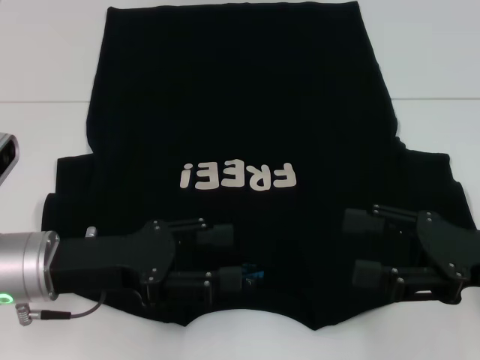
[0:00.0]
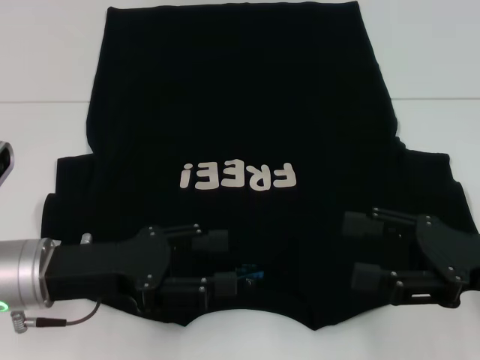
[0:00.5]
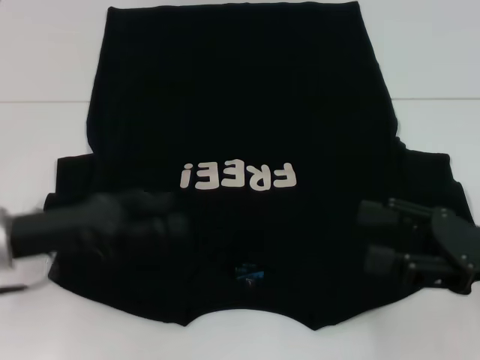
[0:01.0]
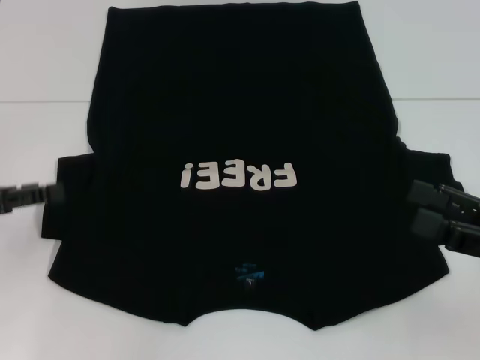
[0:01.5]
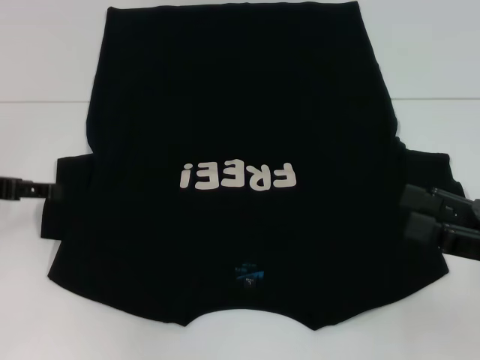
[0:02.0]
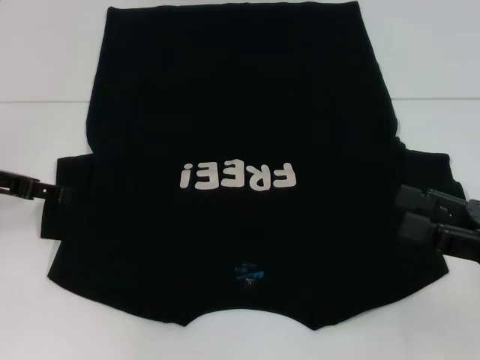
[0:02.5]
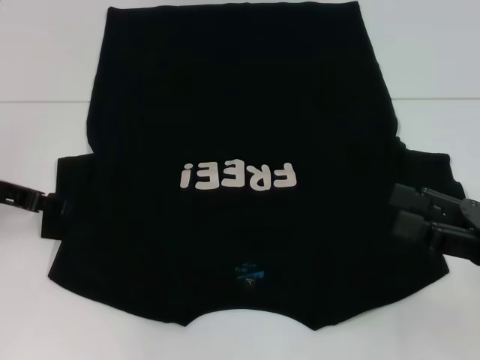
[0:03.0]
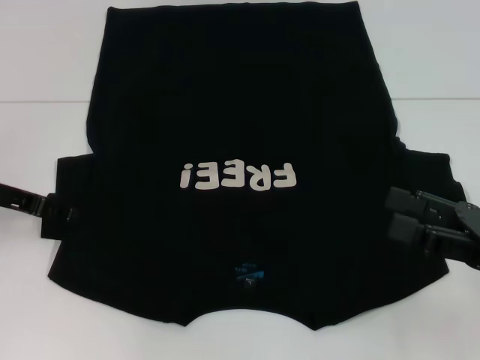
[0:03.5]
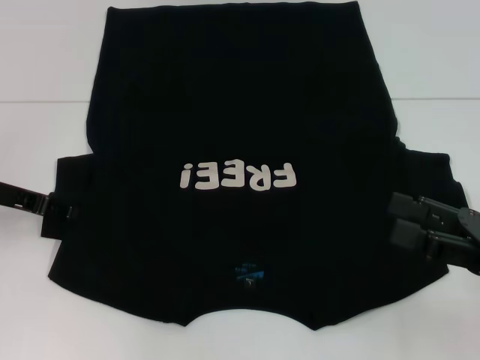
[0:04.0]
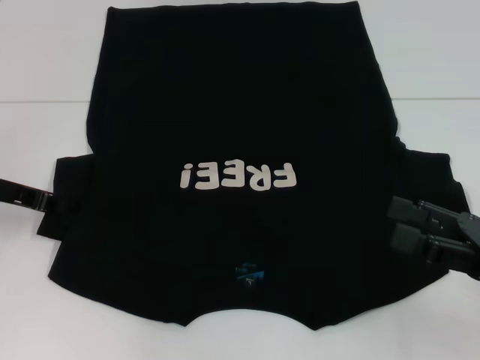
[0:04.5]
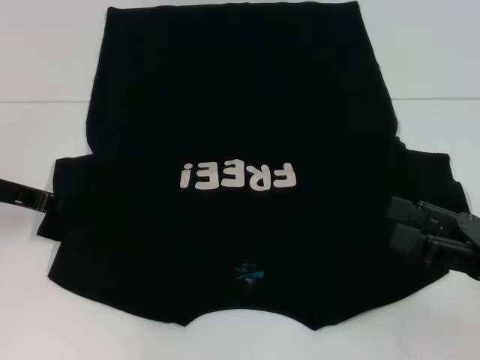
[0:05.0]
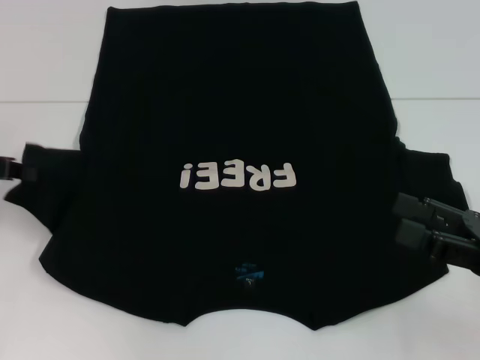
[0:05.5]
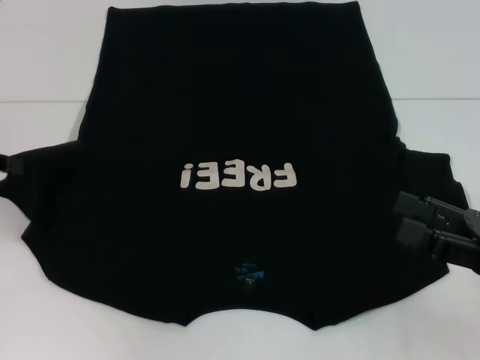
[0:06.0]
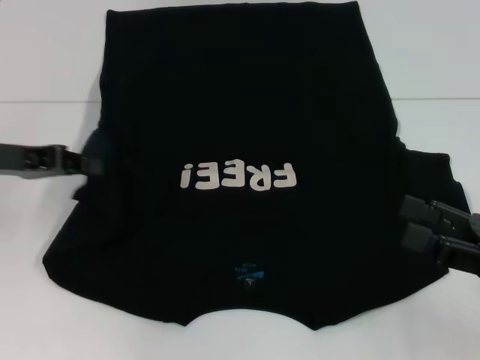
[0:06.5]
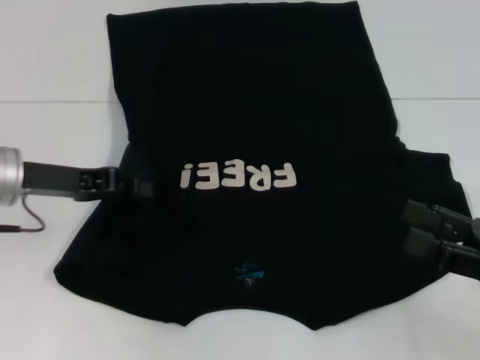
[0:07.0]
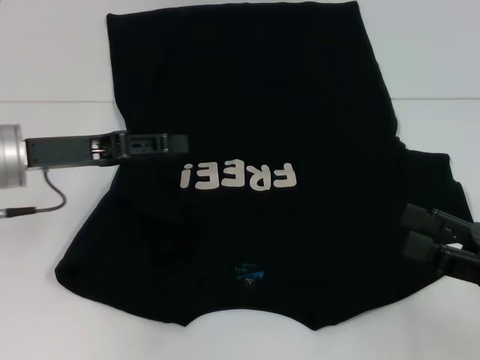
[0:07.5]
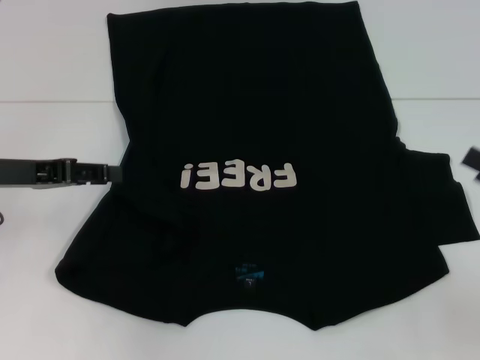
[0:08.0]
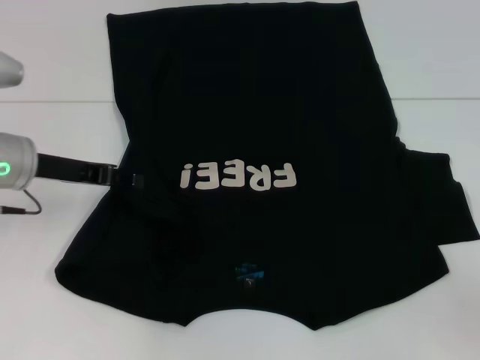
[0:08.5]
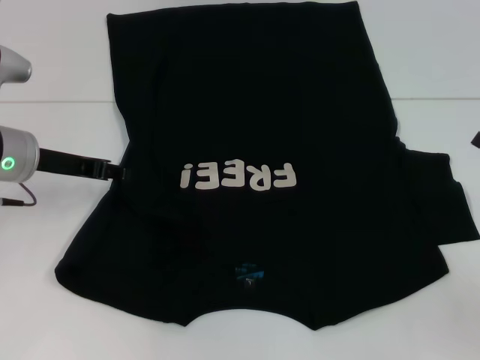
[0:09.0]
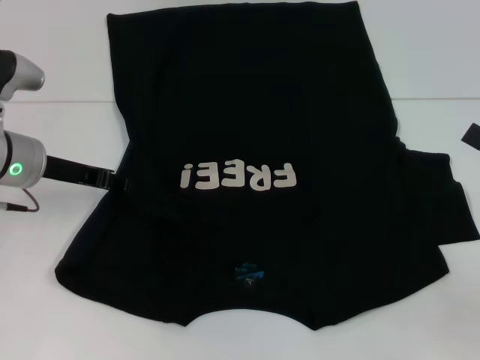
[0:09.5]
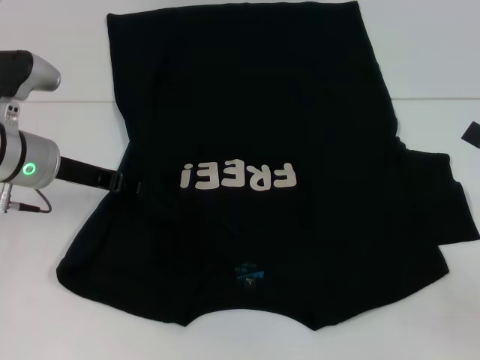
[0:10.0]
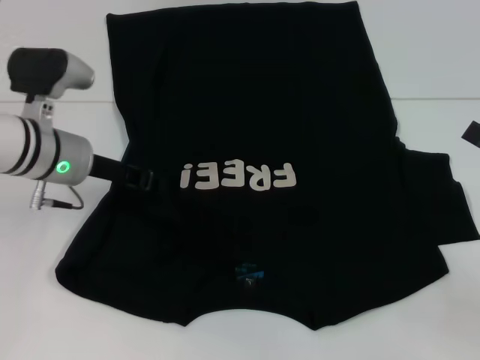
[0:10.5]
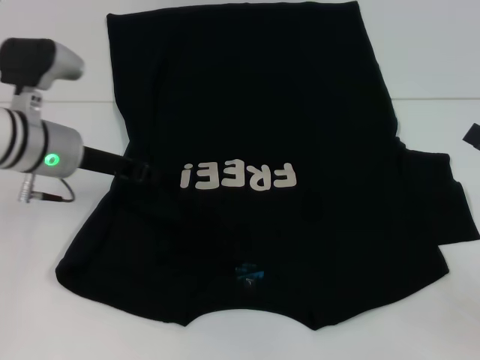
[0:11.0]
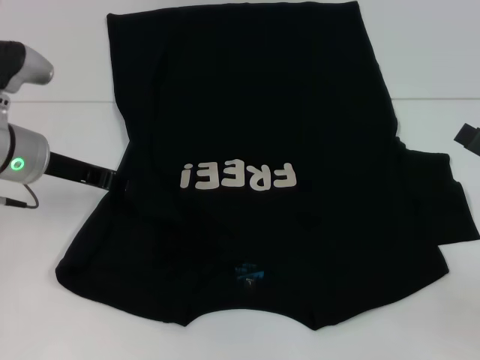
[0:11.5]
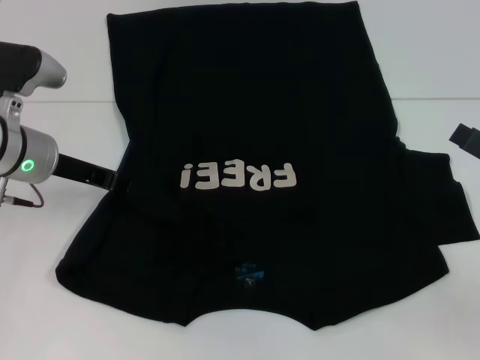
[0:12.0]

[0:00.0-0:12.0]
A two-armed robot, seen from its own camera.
Step, 0:00.0 to 0:08.5: Fold the bottom left sleeve with your left hand.
0:00.0 to 0:02.0: The left gripper is displaced to the left and forward by roughly 15 cm.
0:02.0 to 0:04.0: There are only small adjustments of the grippers.
0:04.0 to 0:06.0: The left gripper travels upward by some 5 cm, and closes its fingers.
0:06.0 to 0:08.0: The left gripper travels to the right by roughly 5 cm, and opens up.
0:08.0 to 0:10.0: The left gripper goes some 10 cm to the right and forward.
0:10.0 to 0:12.0: The grippers stay close to where they were, moving slightly.

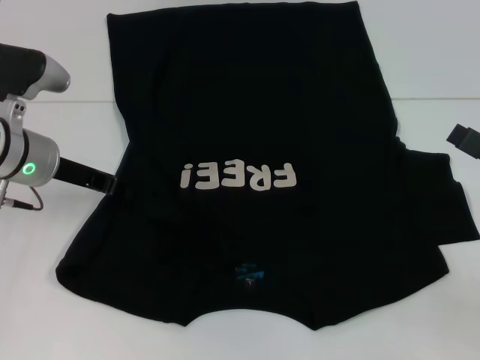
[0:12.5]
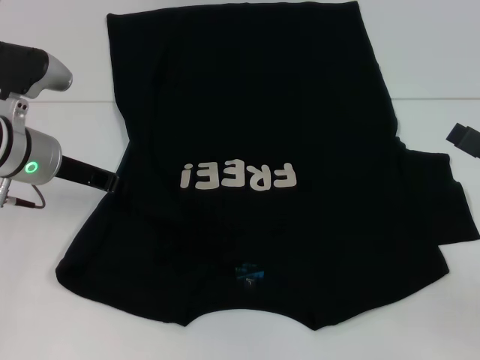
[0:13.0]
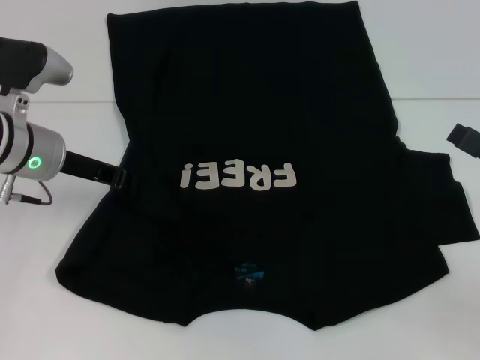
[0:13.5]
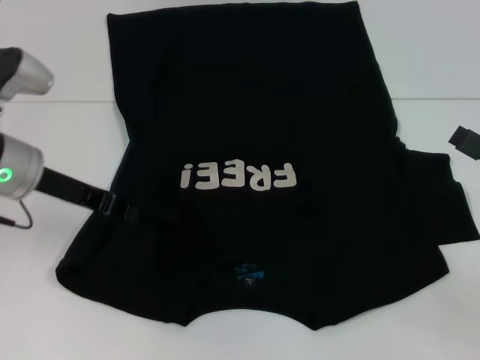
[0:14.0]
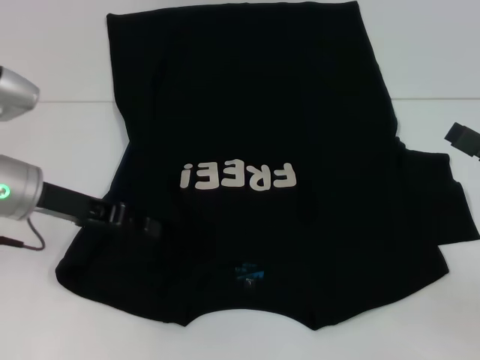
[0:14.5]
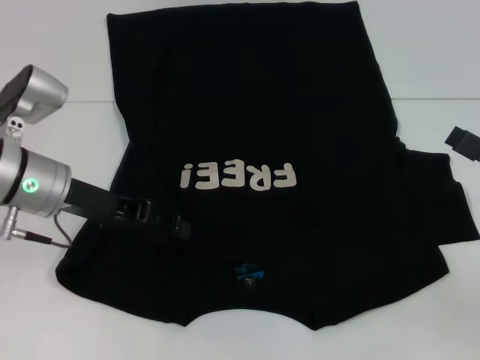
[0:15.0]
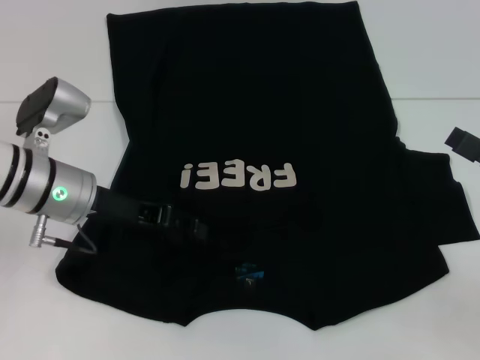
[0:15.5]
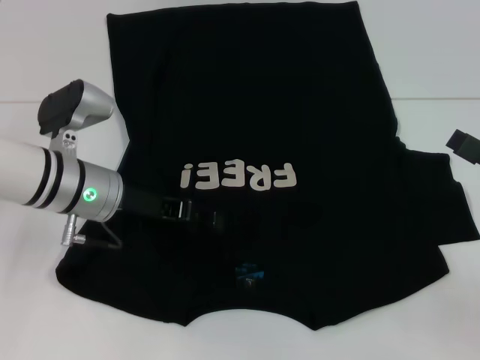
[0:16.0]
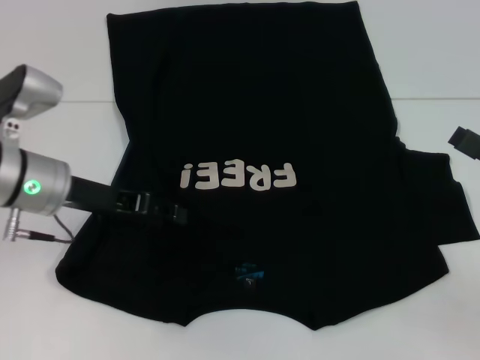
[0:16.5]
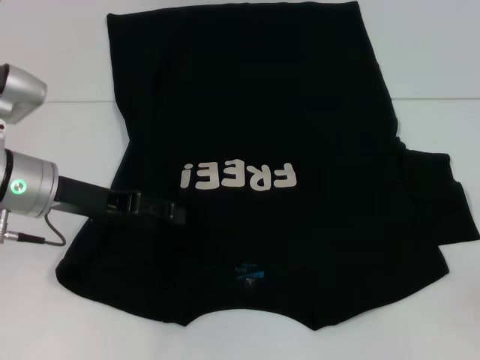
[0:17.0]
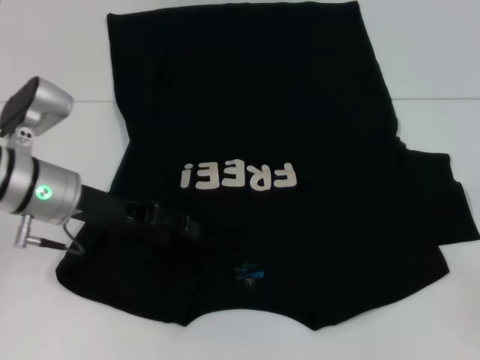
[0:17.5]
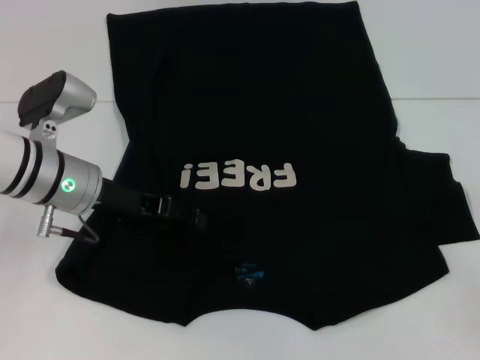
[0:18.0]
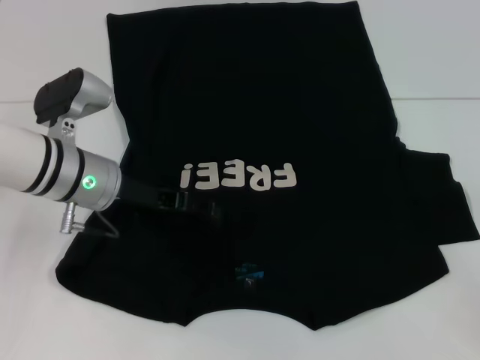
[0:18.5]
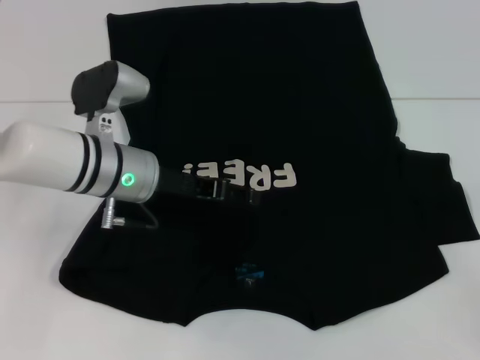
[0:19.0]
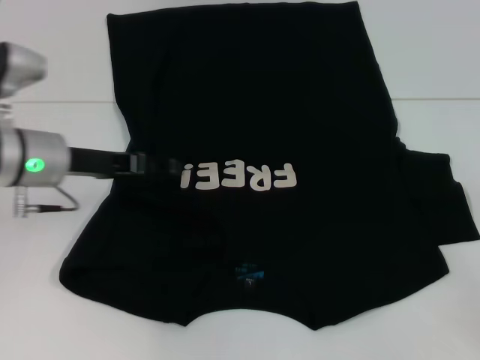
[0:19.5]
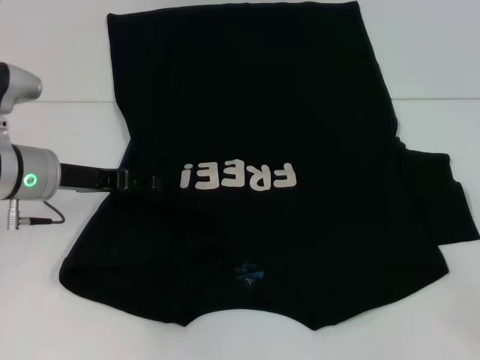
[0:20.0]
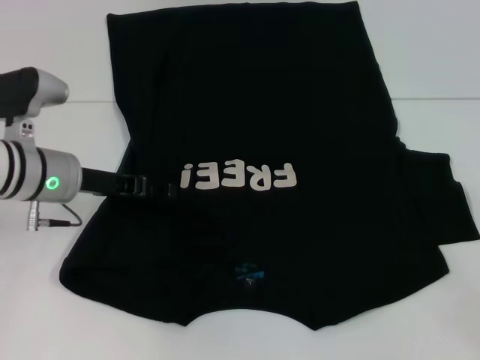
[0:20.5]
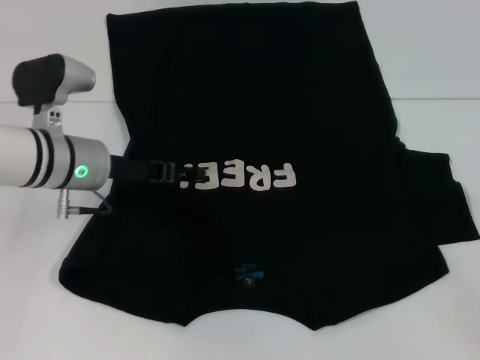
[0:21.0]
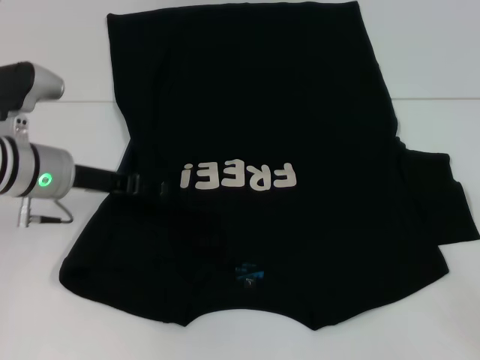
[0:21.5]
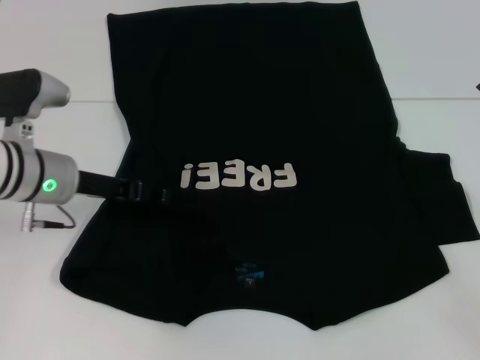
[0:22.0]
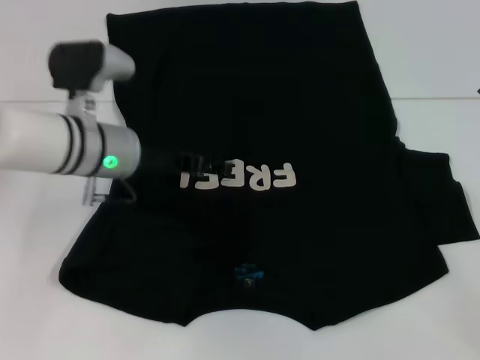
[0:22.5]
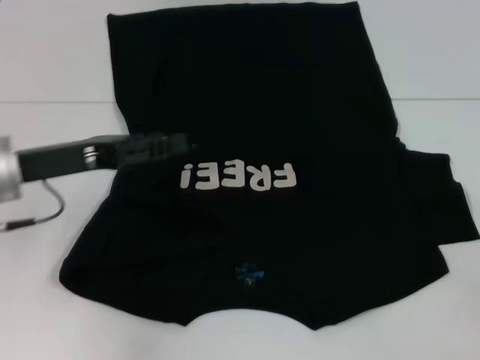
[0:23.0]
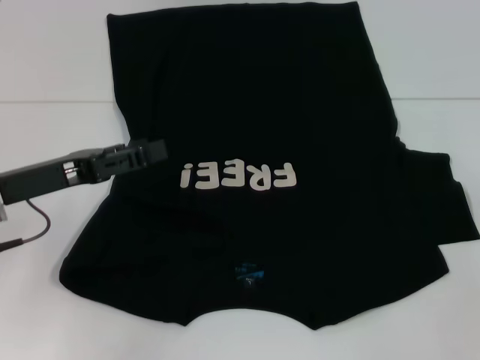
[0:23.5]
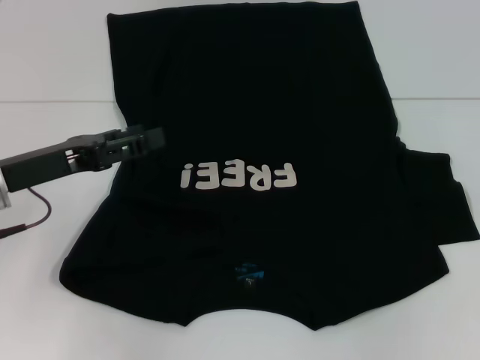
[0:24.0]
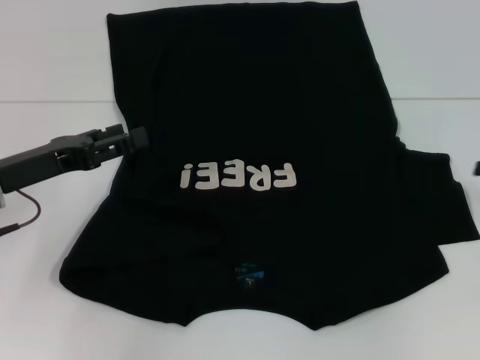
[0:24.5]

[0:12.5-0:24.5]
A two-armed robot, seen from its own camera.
0:14.5 to 0:16.5: The left gripper opens up.
0:16.5 to 0:18.5: The left gripper ends up about 5 cm from where it was.
0:20.5 to 0:22.5: The left gripper shifts about 5 cm to the right.
0:22.5 to 0:24.5: The left gripper heads to the left and backward, covering about 15 cm.

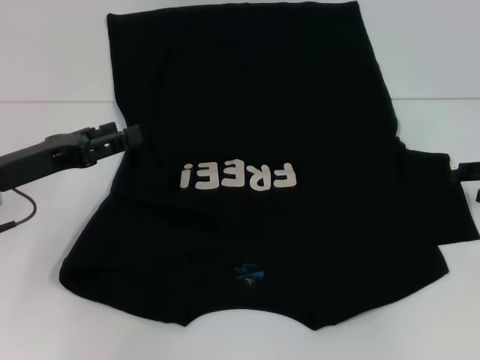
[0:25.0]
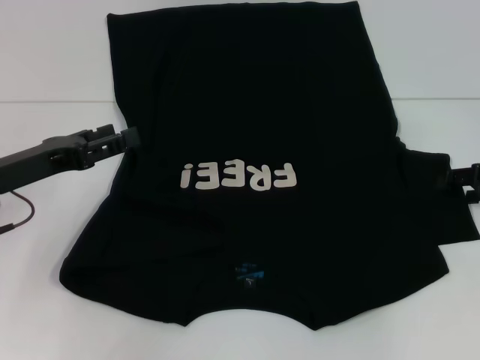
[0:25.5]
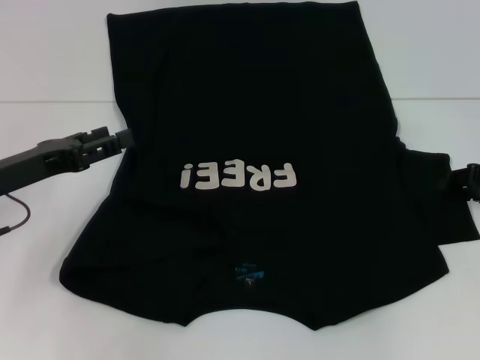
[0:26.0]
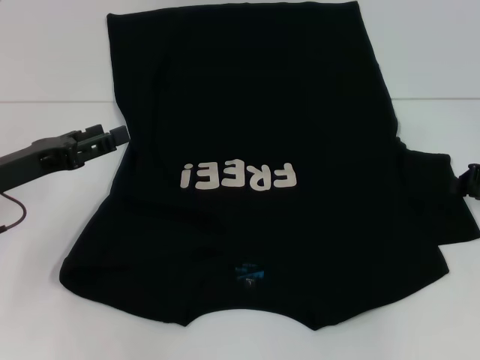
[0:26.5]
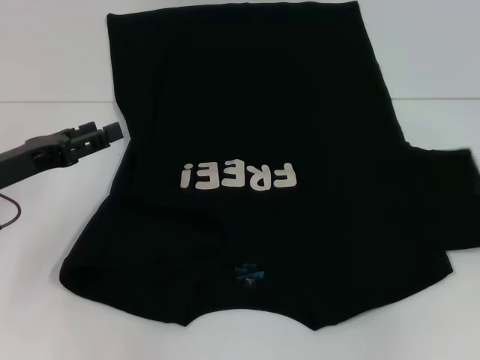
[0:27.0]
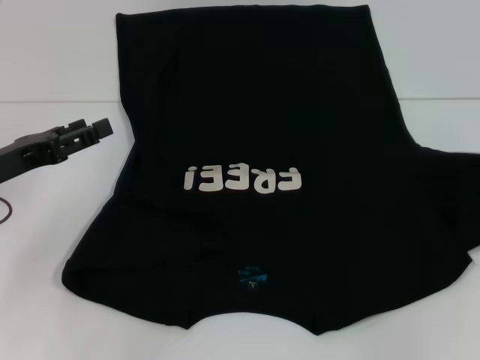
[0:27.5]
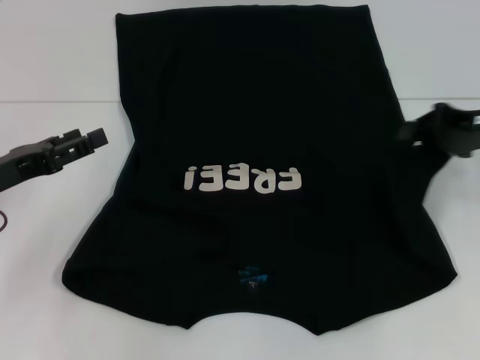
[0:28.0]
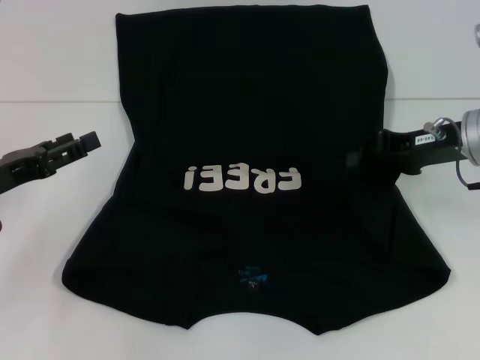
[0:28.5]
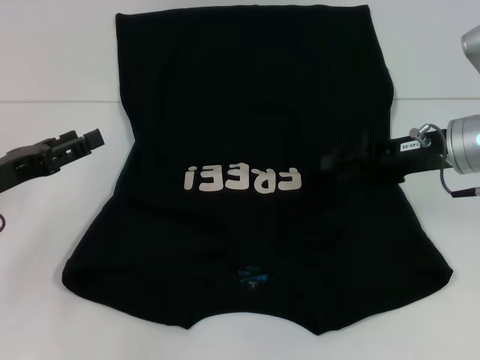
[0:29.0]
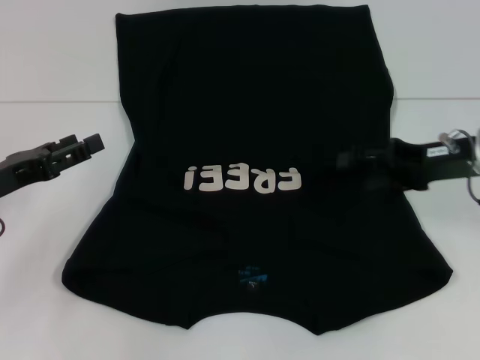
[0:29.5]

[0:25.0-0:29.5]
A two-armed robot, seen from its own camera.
0:25.0 to 0:27.0: The right gripper closes up.
0:27.0 to 0:29.5: The right gripper travels to the left by some 10 cm, and opens its fingers.
